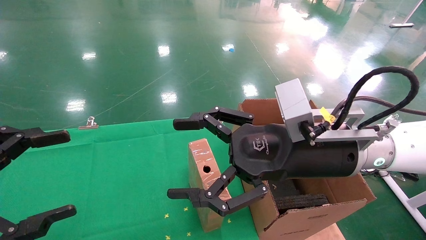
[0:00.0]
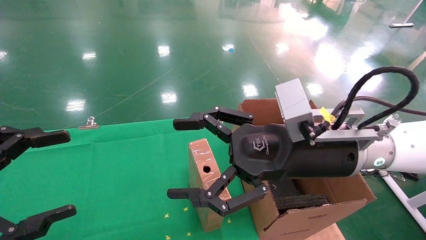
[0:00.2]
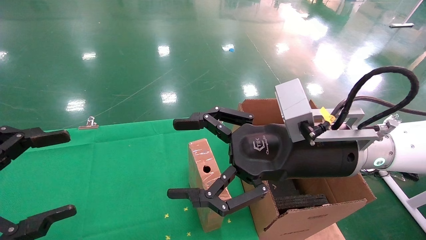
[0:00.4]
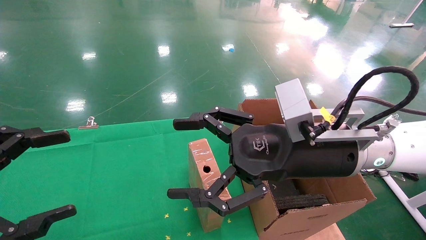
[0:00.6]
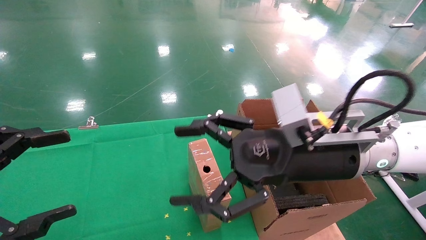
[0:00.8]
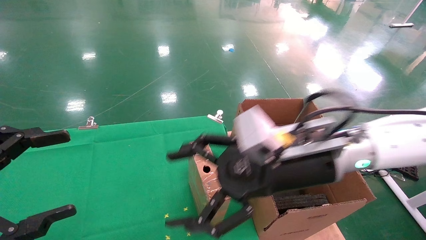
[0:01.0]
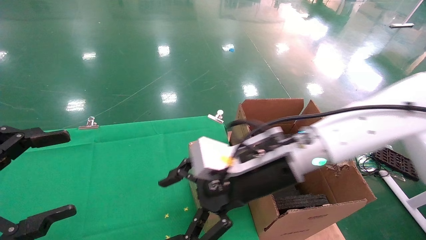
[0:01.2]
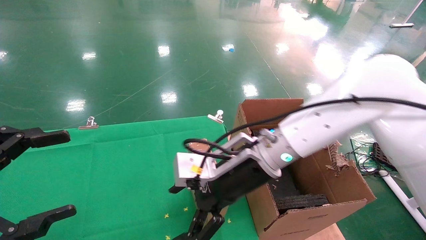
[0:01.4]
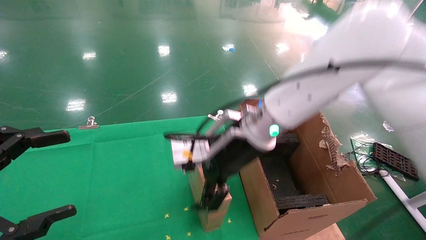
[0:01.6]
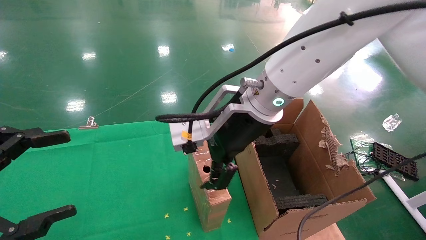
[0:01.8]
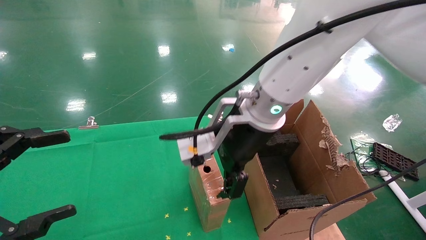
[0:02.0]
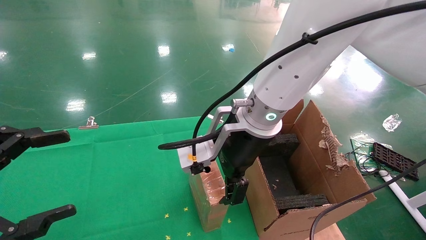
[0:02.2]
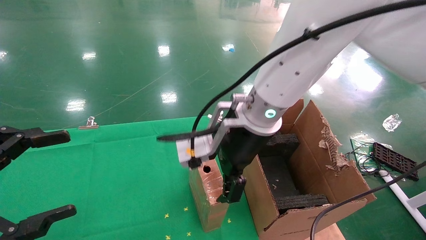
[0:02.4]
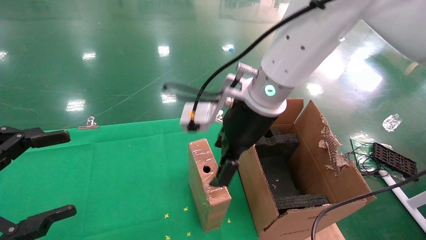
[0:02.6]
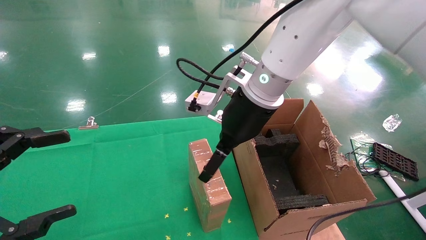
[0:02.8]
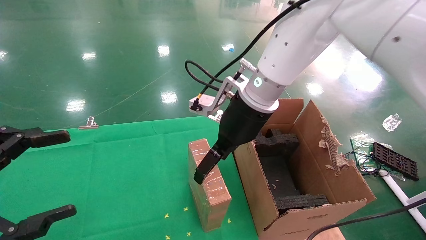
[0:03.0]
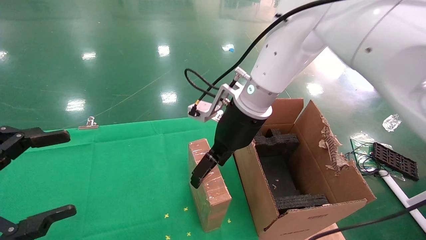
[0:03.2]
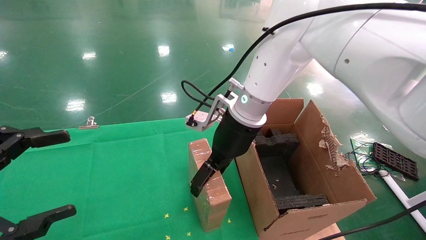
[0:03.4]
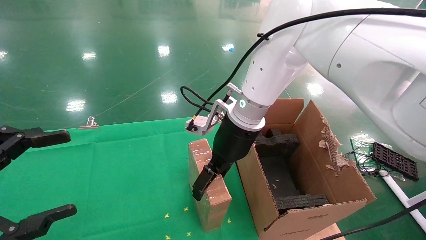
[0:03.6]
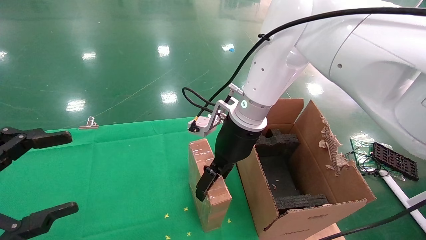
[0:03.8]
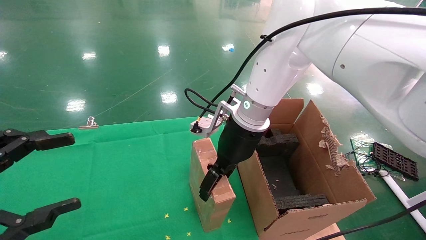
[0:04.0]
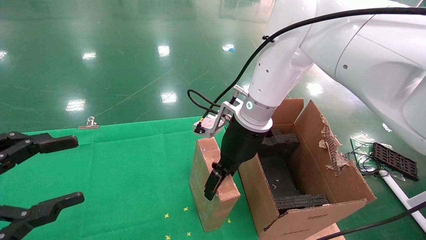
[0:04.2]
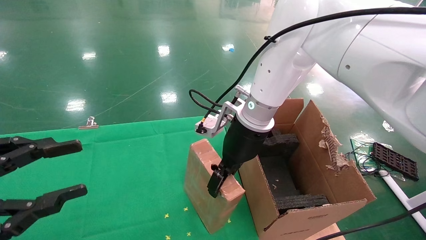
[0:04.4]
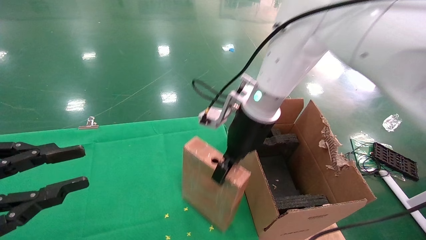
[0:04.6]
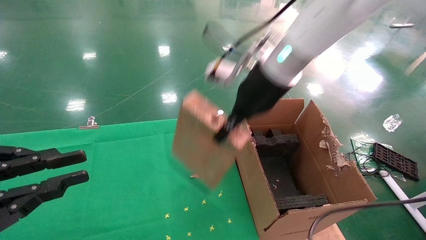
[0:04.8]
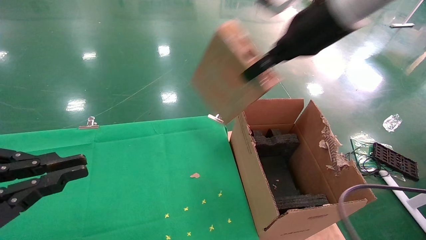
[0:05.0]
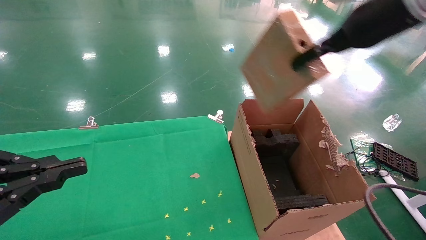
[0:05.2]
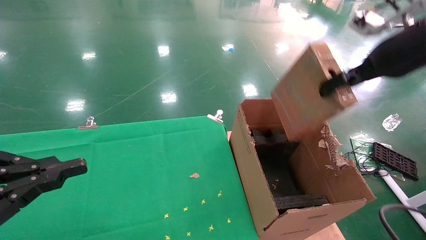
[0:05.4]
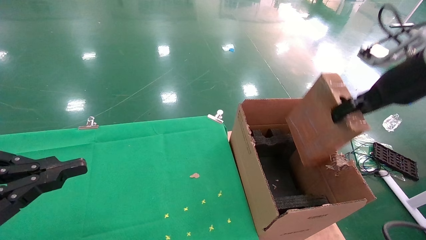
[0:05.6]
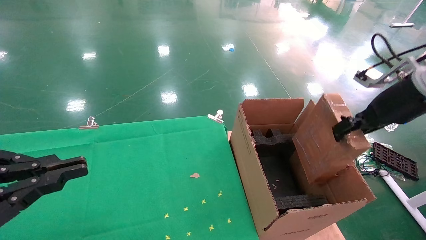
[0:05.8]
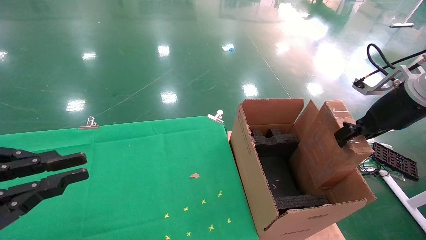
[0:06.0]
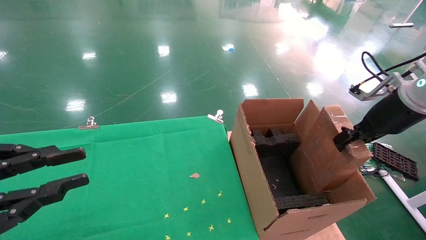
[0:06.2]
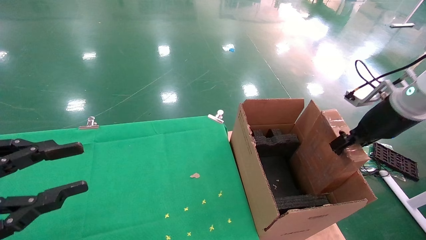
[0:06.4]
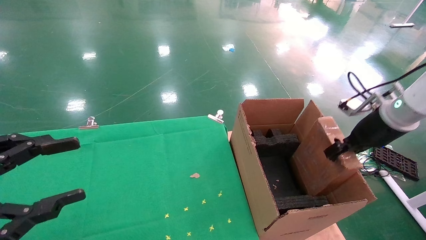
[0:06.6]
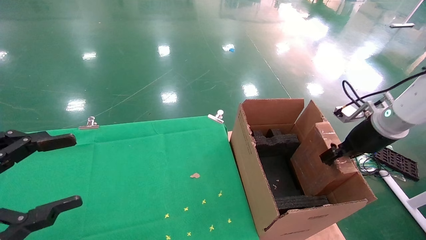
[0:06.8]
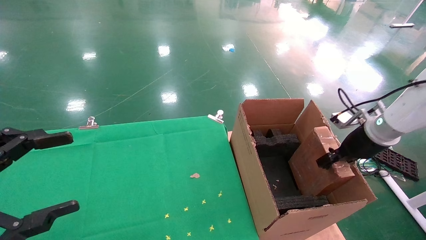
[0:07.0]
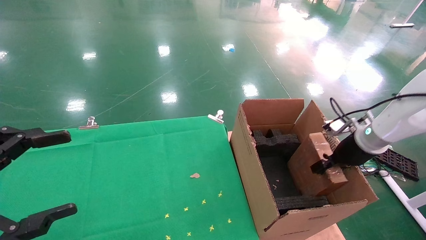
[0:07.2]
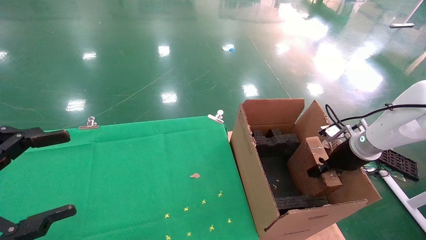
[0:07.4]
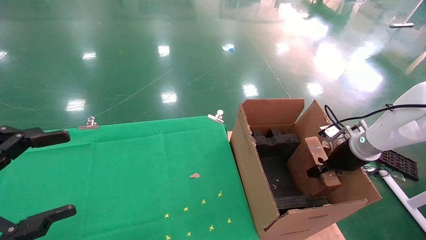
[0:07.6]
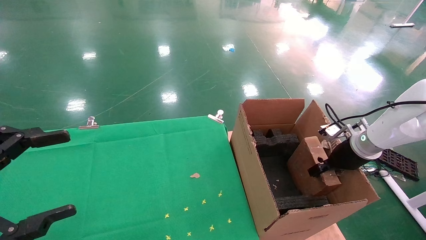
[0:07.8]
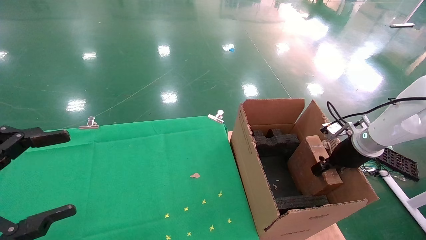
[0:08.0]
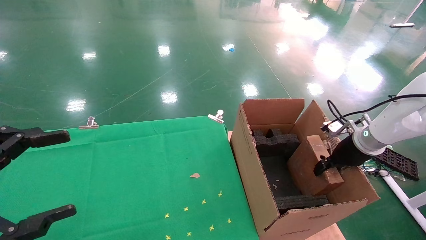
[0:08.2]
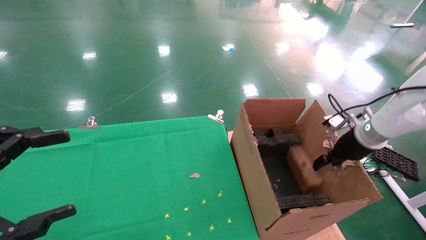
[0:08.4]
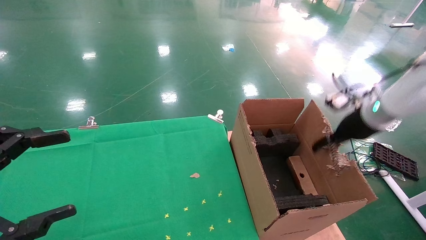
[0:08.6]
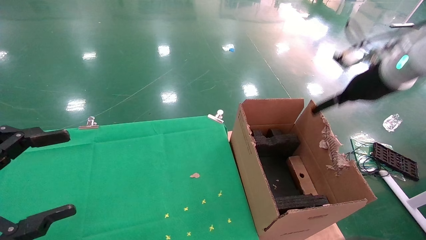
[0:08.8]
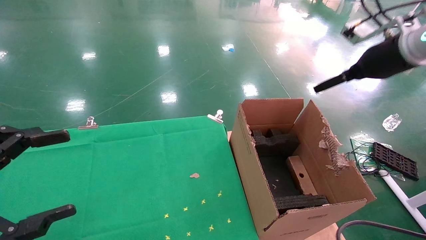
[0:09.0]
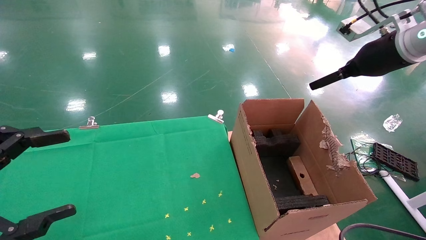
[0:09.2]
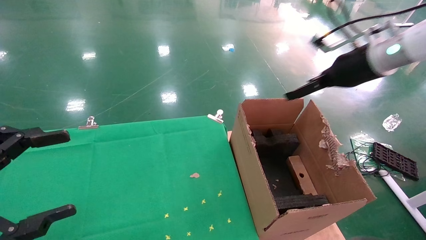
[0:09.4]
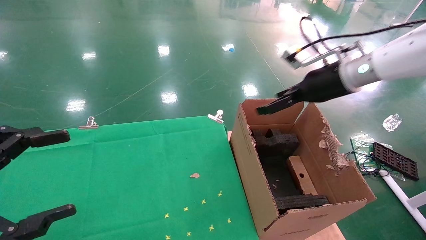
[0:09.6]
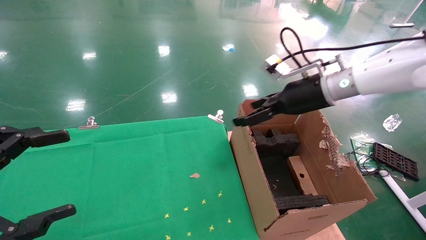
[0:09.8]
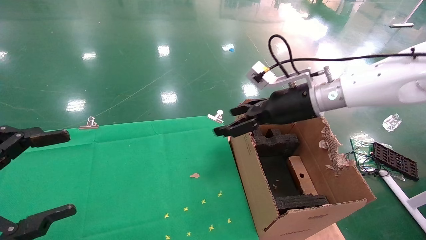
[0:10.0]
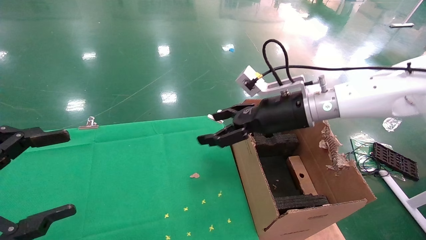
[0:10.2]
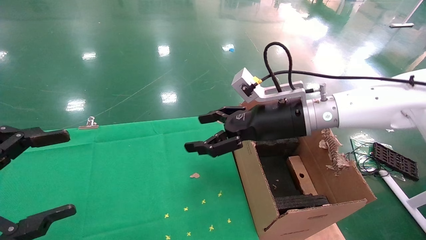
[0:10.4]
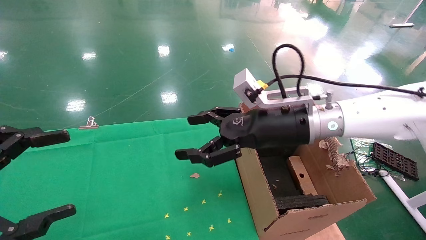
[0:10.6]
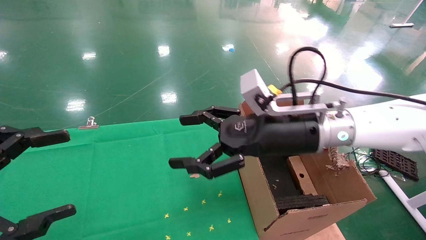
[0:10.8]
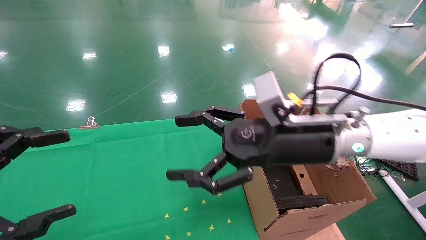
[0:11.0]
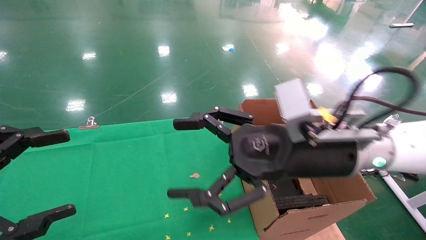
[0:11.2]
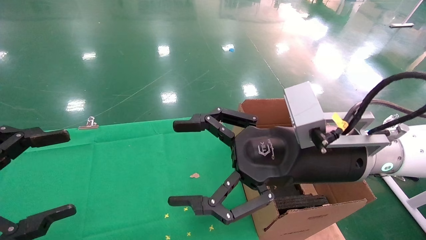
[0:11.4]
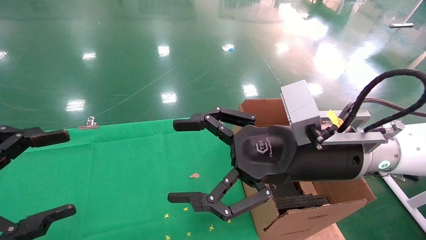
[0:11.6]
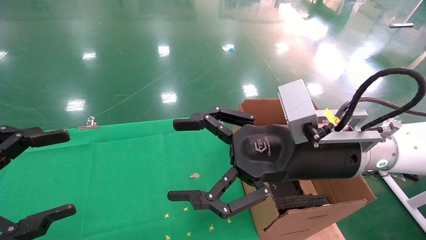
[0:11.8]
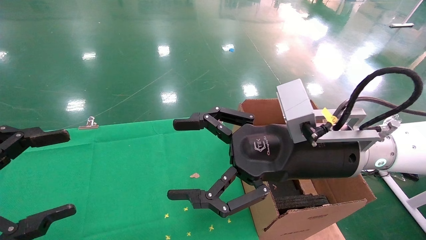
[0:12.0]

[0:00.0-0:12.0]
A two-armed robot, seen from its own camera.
Task of the whole recording: using a robotic arm to pick up a cardboard box and palace it the carton.
Step, 0:01.0 to 0:04.4: Pick up the mouse and the power cord paper box.
Step, 0:04.6 to 0:08.4: Place the mouse and the power cord paper box into the container.
0:00.0 to 0:01.6: The right gripper is displaced to the left and forward by about 10 cm.
0:01.6 to 0:03.0: The right gripper ends up about 5 cm from where it was.
0:03.0 to 0:04.4: The left gripper closes up; the right gripper closes up.
0:04.4 to 0:06.0: The left gripper closes its fingers. The right gripper heads to the right, covering some 30 cm, and closes up.
0:06.0 to 0:07.6: The right gripper shifts some 20 cm downward and forward. The left gripper opens its fingers.
0:07.6 to 0:09.0: The right gripper moves upward, roughly 20 cm, and opens.
0:09.0 to 0:10.4: The right gripper is displaced to the left and downward by about 25 cm.
0:10.4 to 0:12.0: The right gripper heads backward, covering some 10 cm.

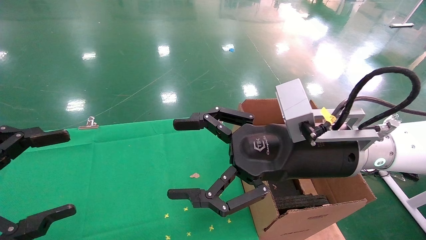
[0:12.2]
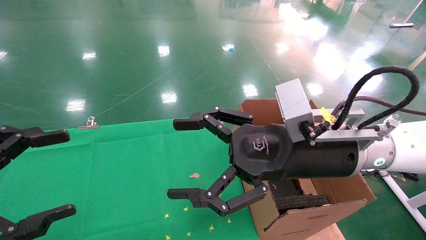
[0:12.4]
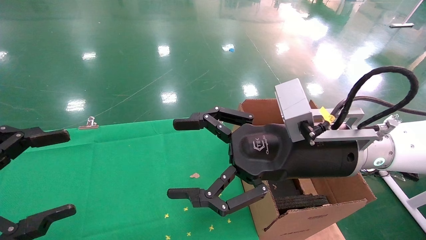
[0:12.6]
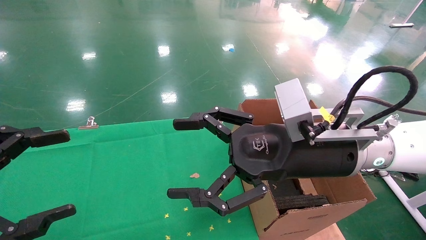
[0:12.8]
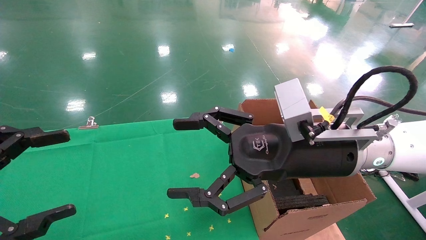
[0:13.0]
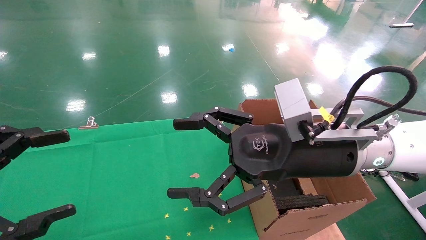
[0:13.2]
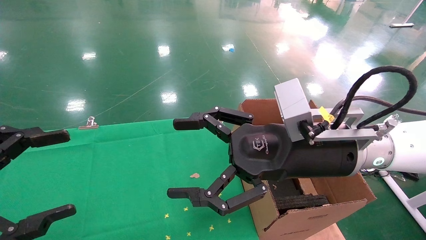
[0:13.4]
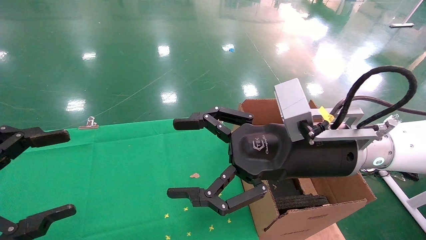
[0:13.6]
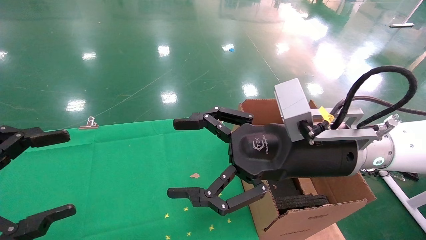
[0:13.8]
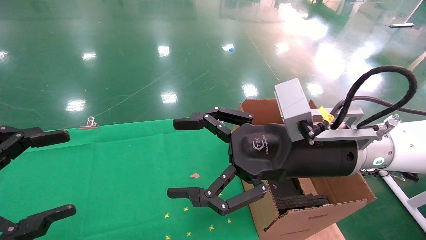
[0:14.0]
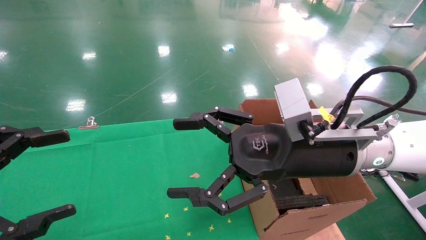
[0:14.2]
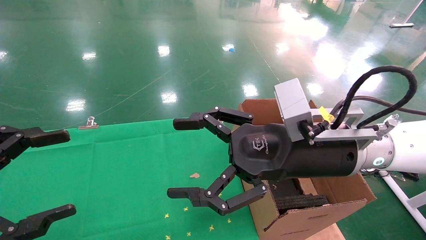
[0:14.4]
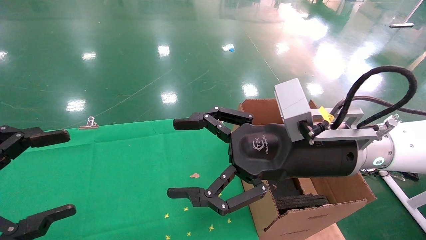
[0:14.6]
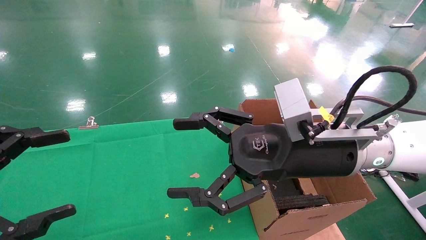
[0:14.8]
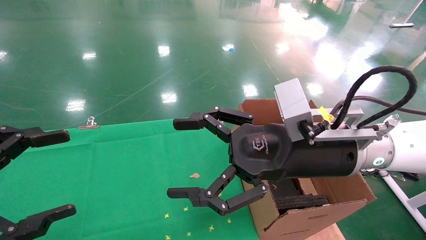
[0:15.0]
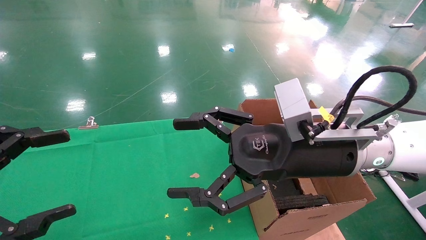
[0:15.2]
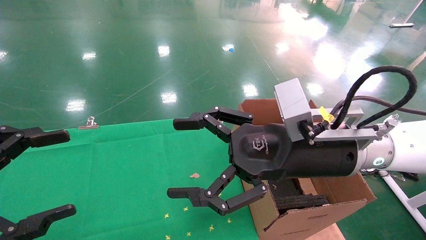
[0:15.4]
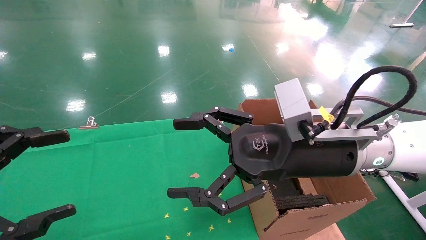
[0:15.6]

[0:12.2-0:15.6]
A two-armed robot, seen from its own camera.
Task of the whole recording: using a robotic arm to pick up a cardboard box and palace it the carton.
0:12.2 to 0:15.6: Both grippers stay about where they are.
